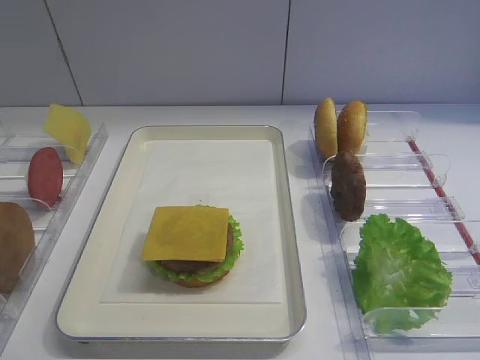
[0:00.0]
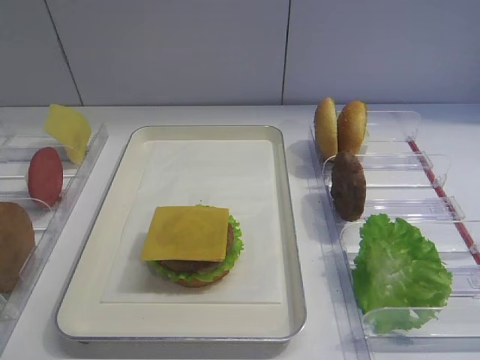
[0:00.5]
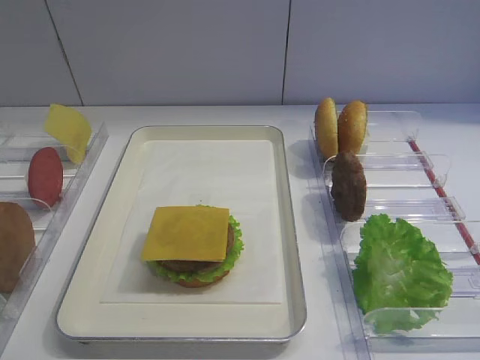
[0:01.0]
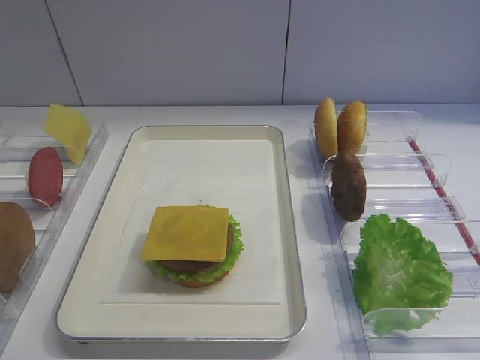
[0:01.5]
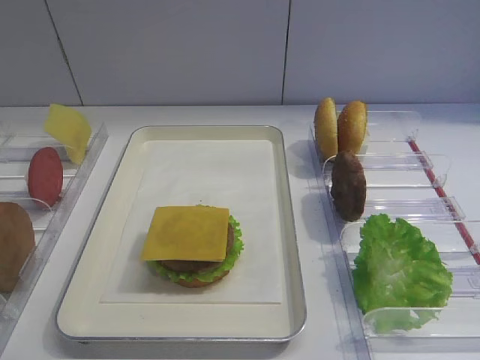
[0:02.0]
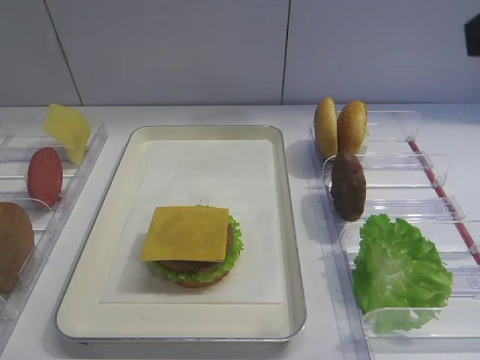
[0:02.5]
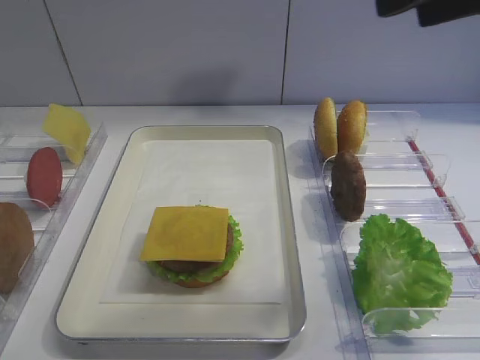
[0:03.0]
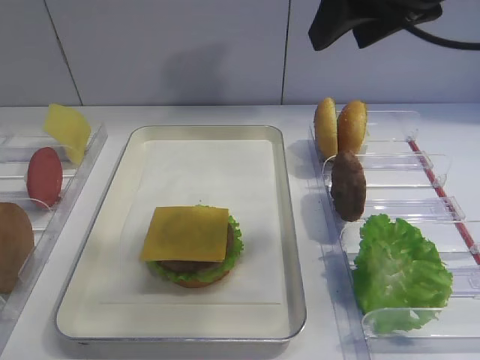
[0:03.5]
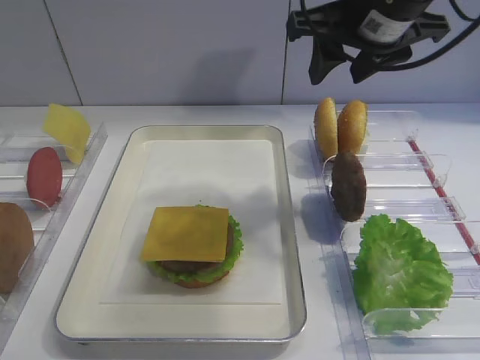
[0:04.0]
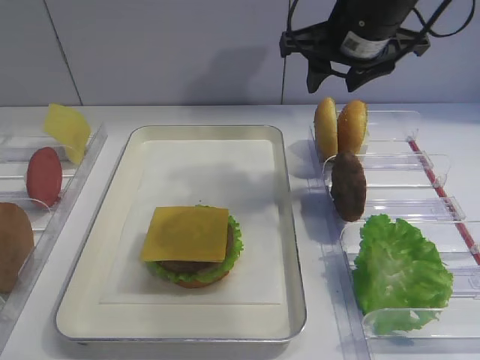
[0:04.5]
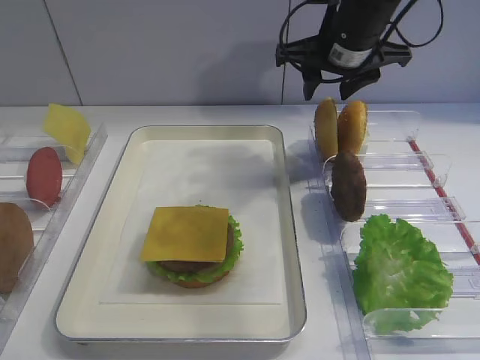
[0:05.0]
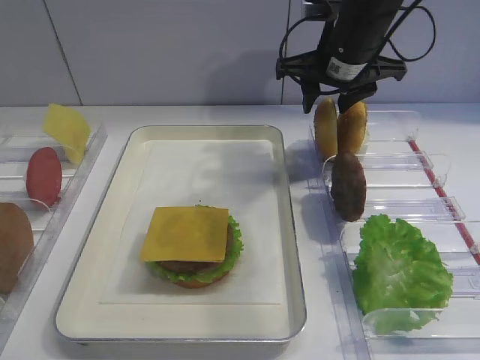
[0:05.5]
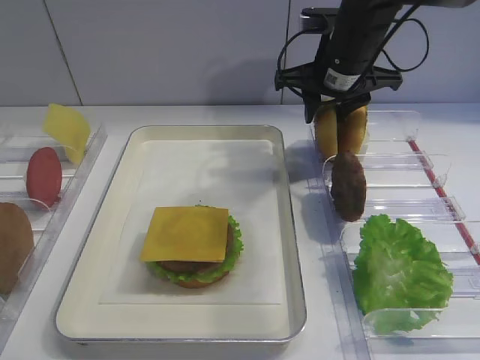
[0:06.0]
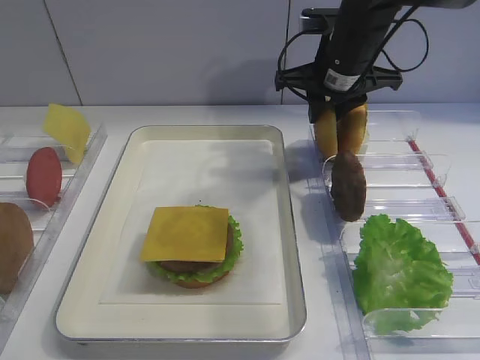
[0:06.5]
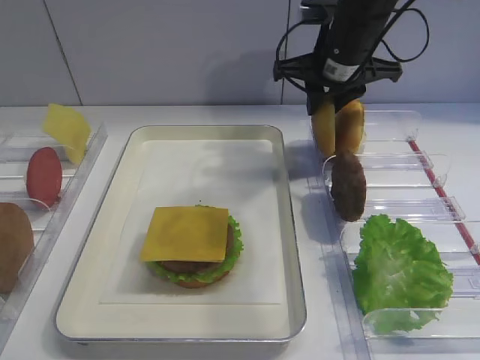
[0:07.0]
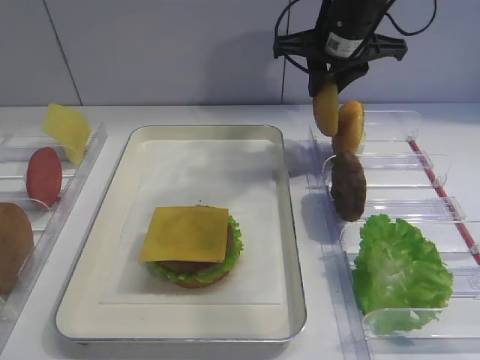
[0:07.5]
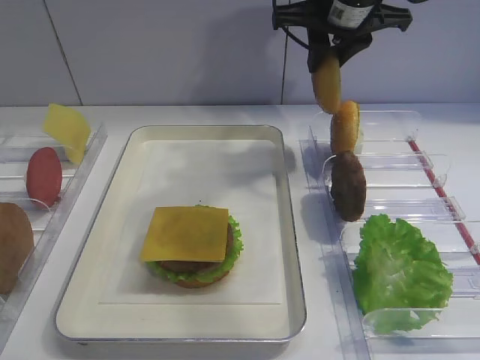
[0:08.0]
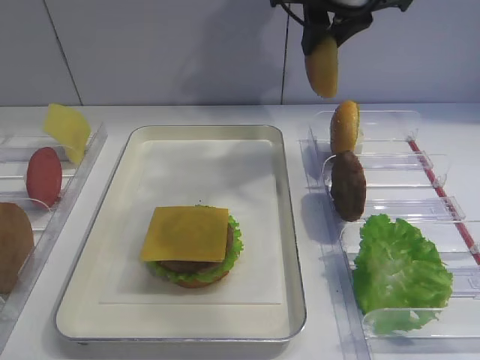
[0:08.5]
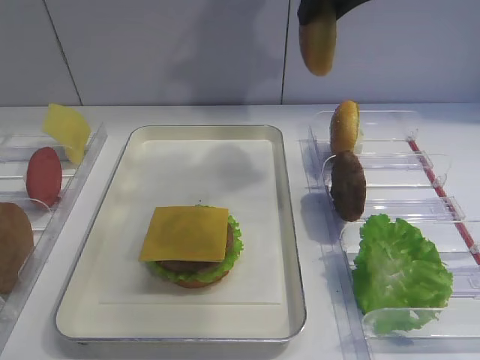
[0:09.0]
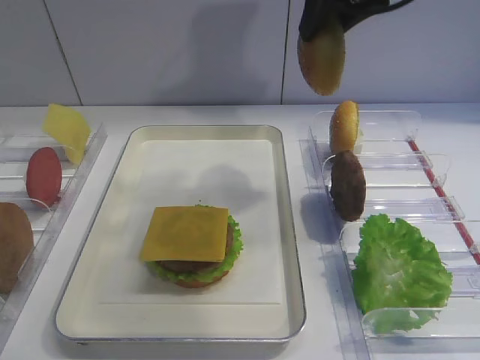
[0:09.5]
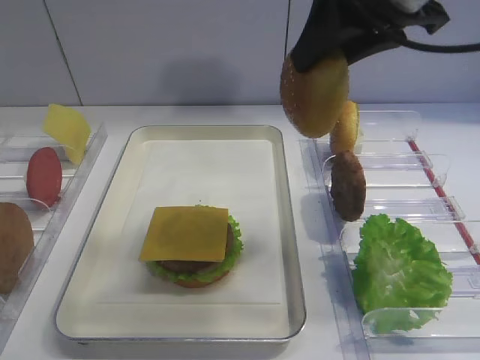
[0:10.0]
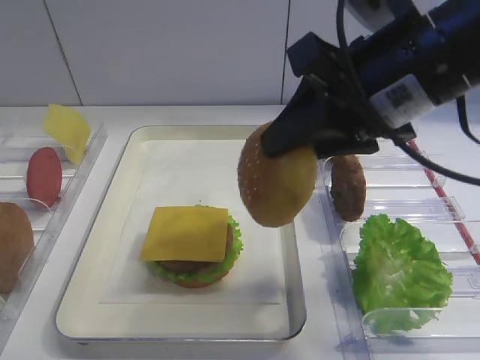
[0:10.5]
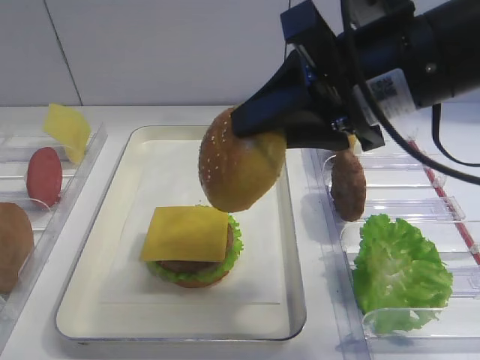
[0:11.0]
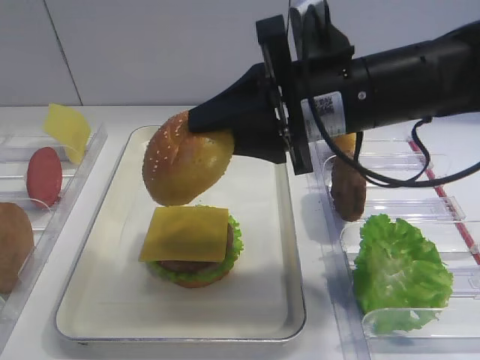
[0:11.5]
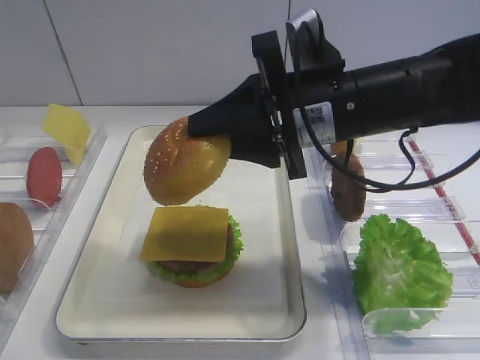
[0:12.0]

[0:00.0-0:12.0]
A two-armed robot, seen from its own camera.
Step, 0:00.0 to 0:07.5: Pick up the hamburger lid with the right gripper.
0:02.0 to 0:04.0: The right gripper moves forward and to the left, some 30 cm.
0:04.0 to 0:06.0: The right gripper moves downward and forward, about 15 cm.
0:06.0 to 0:08.0: The right gripper moves upward, some 10 cm, and closes its fingers.
0:08.0 to 0:10.0: The right gripper goes some 15 cm backward and upward.
0:10.0 to 0:12.0: The right gripper travels downward by some 10 cm.

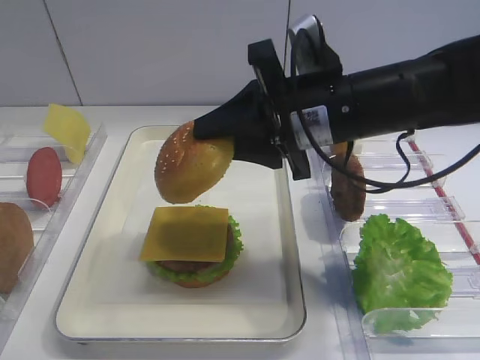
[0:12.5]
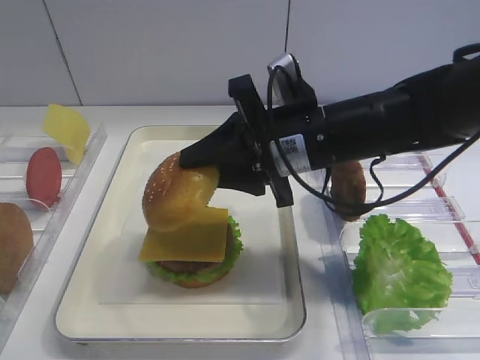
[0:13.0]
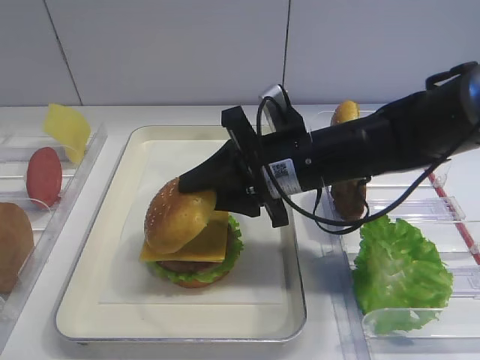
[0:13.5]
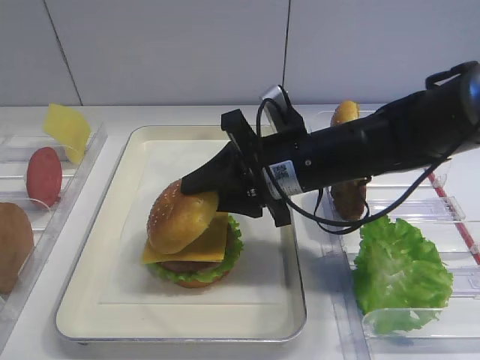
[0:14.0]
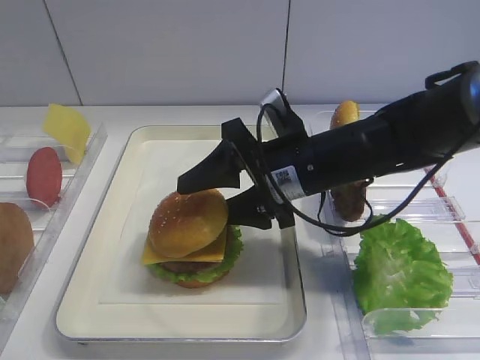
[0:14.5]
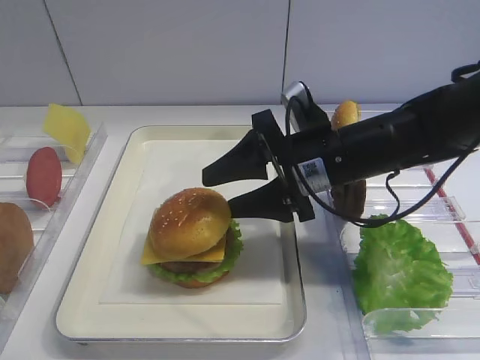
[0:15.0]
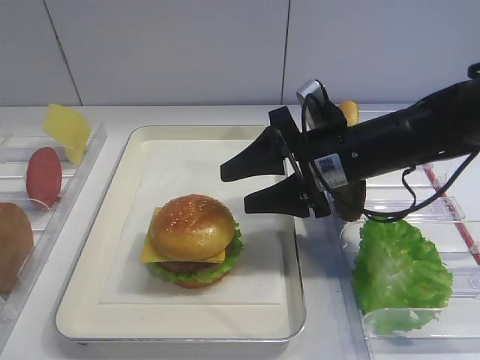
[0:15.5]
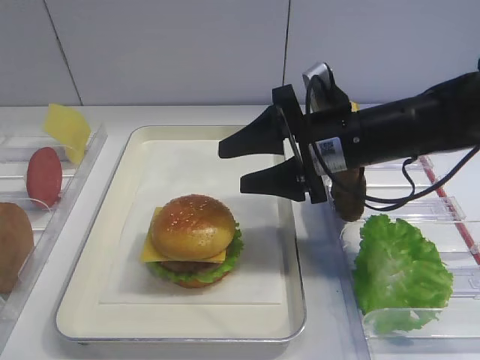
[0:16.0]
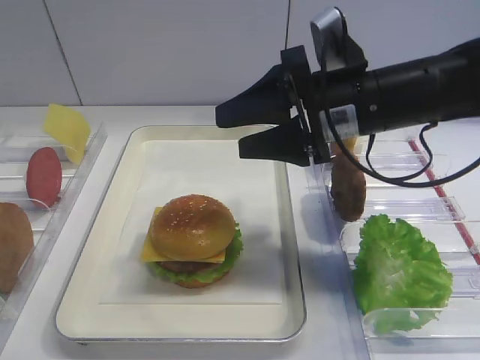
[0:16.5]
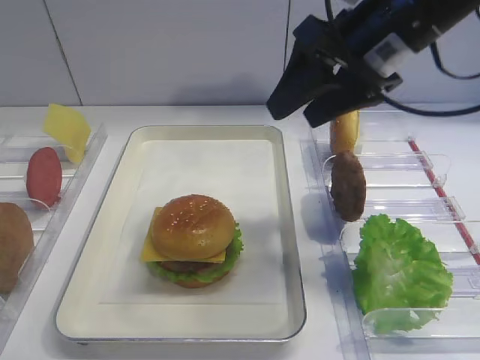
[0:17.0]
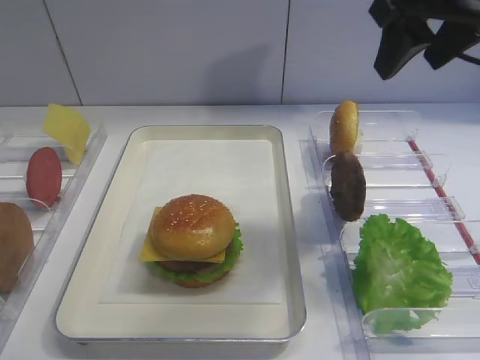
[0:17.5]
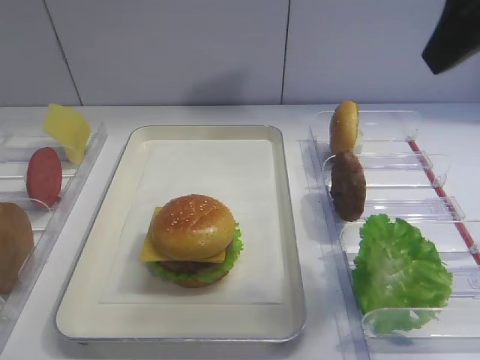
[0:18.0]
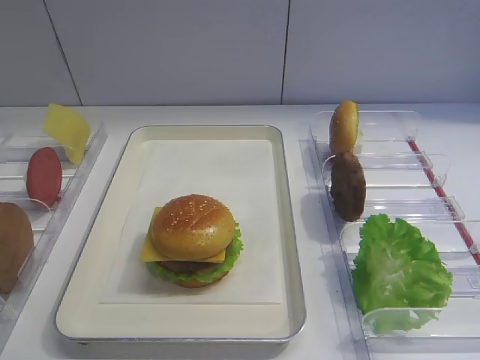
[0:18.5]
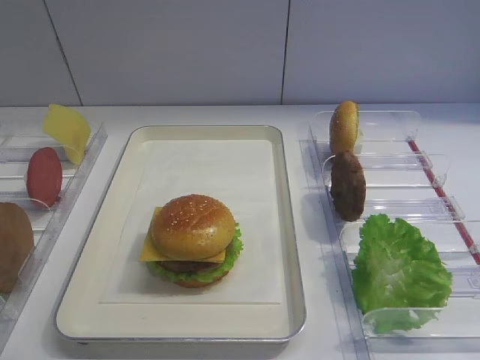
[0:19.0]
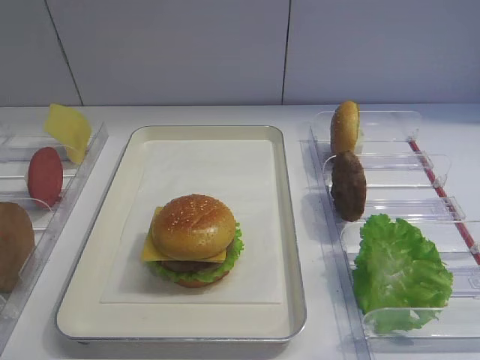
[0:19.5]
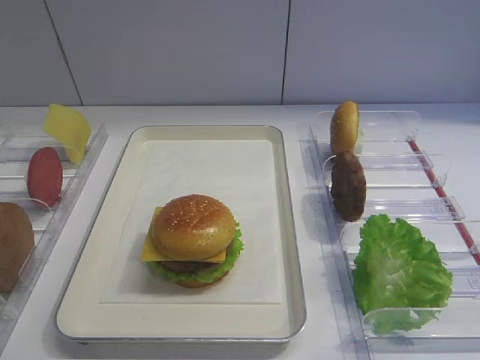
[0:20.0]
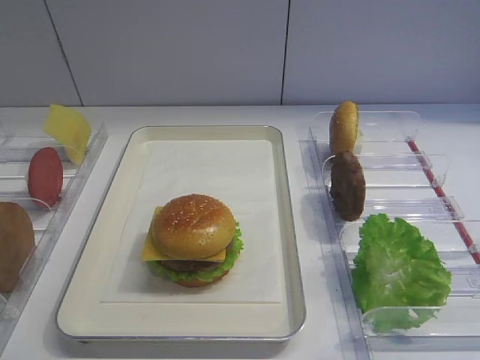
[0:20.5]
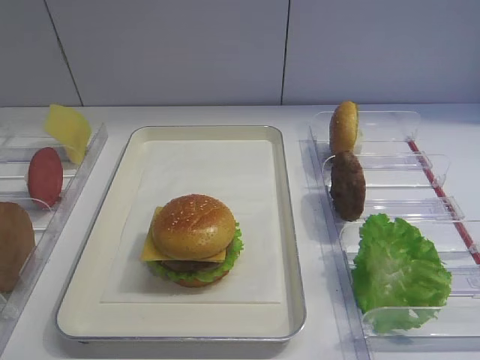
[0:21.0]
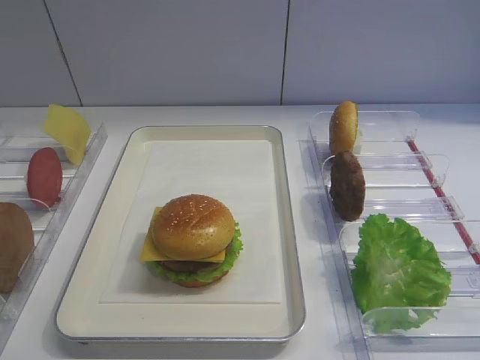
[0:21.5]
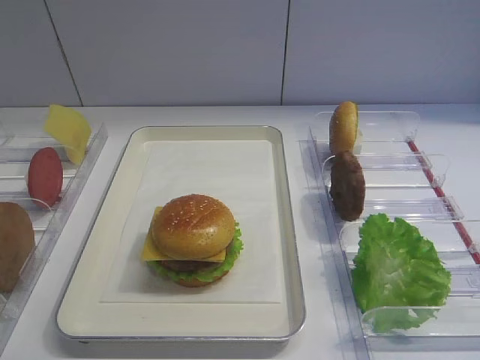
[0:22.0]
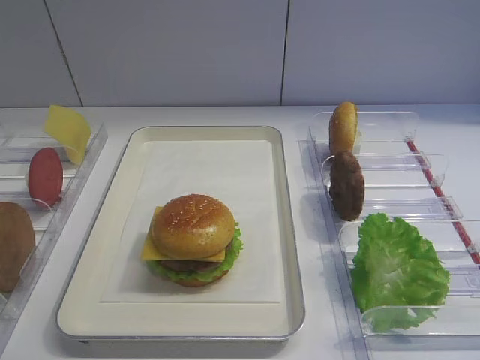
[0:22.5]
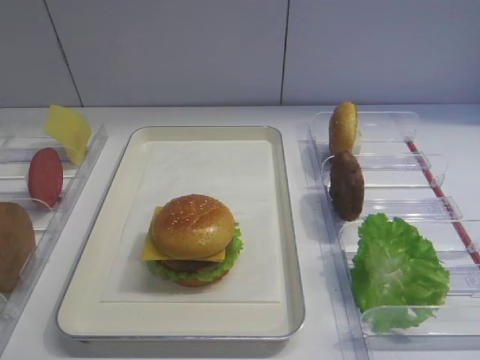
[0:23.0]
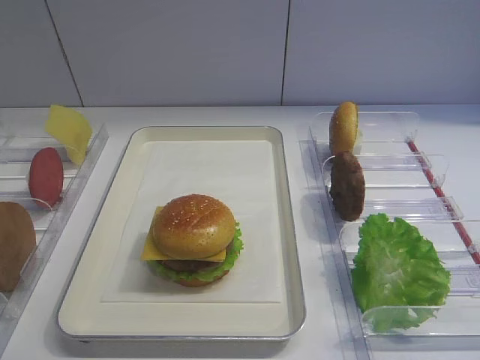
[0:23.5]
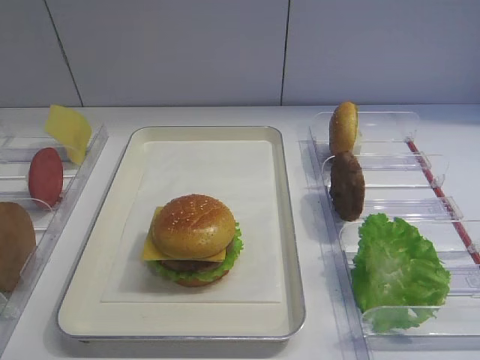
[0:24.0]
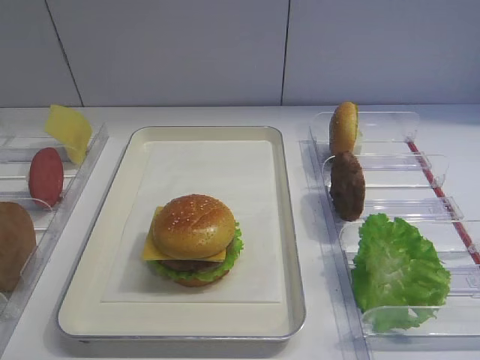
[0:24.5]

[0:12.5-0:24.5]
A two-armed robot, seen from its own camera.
Step, 0:12.5 to 0:15.5: Place the hamburger lid on the cheese slice with the right gripper.
0:12.5 to 0:14.5: The right gripper is displaced downward by about 5 cm, and opens up.
0:14.5 to 0:16.5: The right gripper is displaced upward by approximately 5 cm.
0:16.5 to 0:18.5: The right gripper heads backward, to the right and upward, covering approximately 25 cm.
0:18.5 to 0:20.5: The right gripper moves backward and downward, about 15 cm.
0:22.5 to 0:24.5: Both grippers stay about where they are.

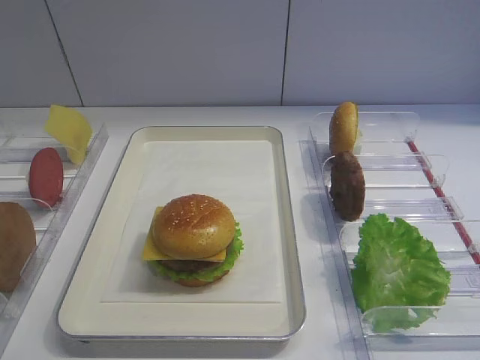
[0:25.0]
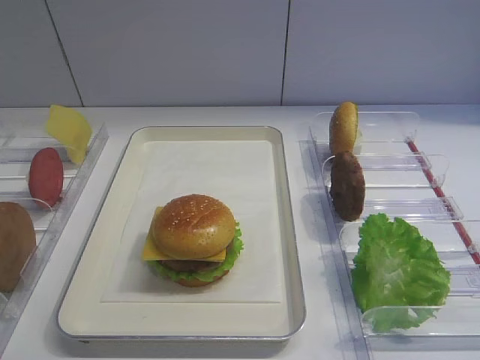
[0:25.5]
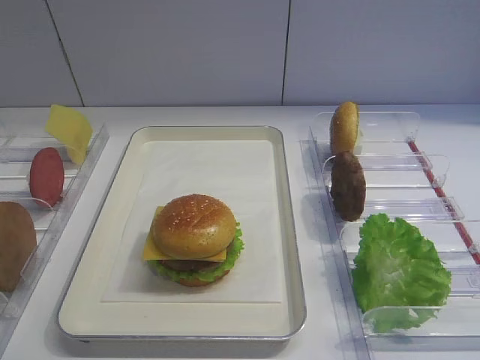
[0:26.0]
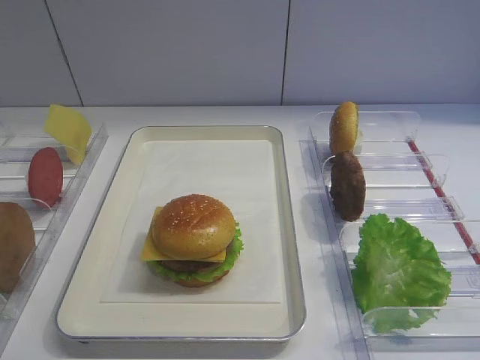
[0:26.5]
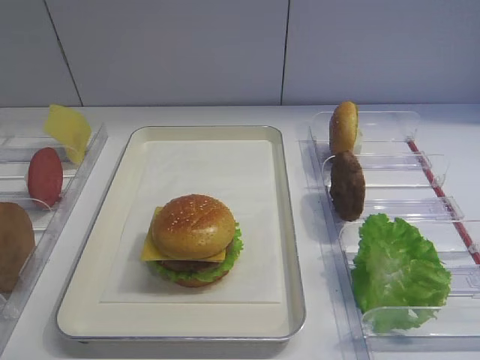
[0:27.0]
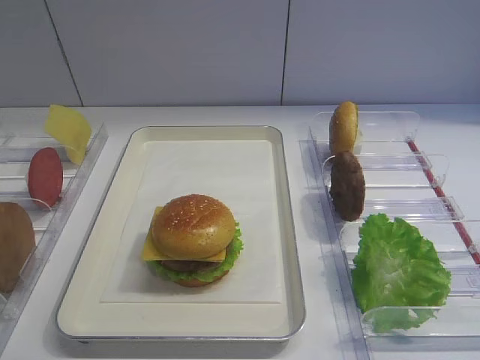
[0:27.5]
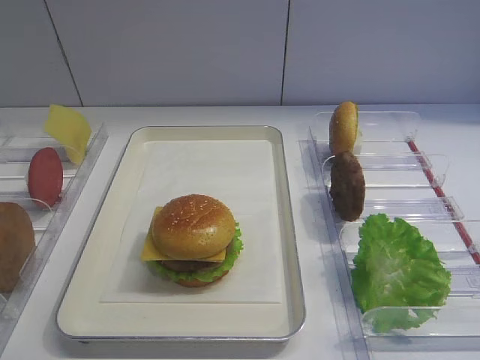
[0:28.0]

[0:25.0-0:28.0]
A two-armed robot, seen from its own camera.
0:25.0 to 0:28.0: Both grippers stay about where they are.
